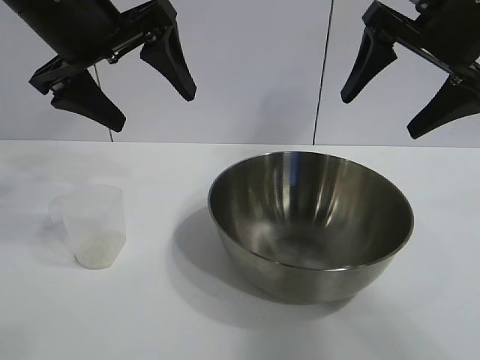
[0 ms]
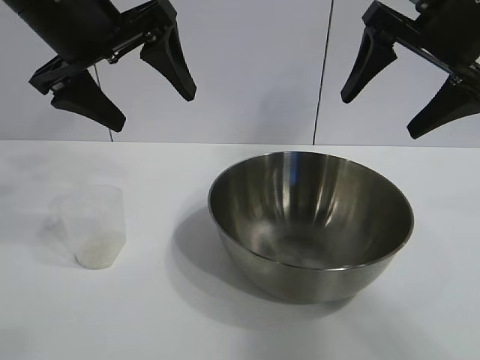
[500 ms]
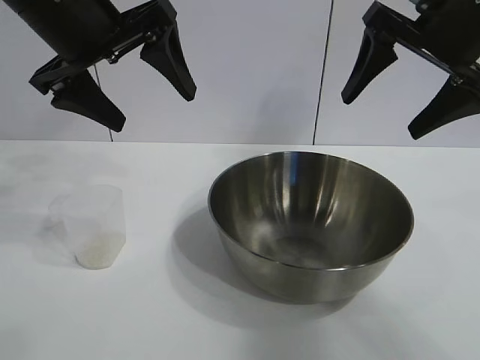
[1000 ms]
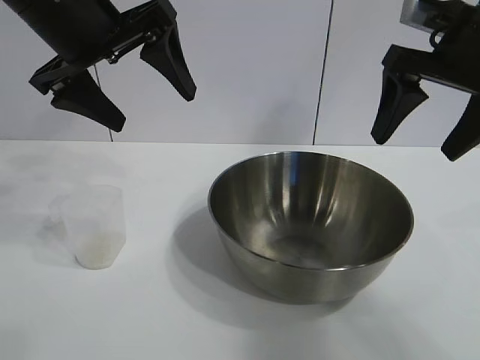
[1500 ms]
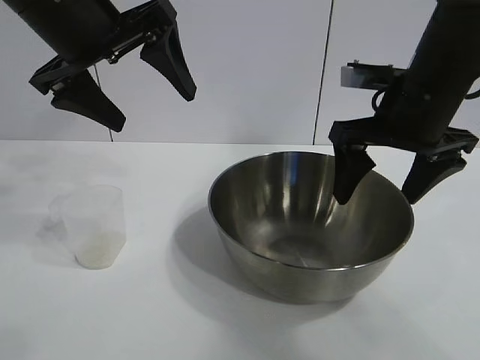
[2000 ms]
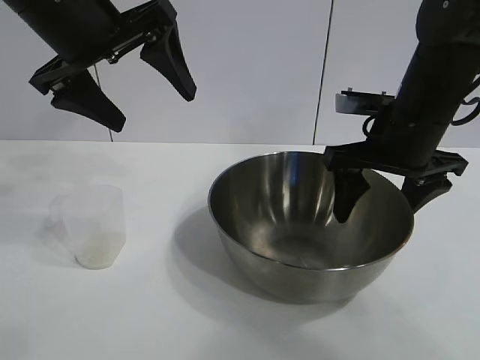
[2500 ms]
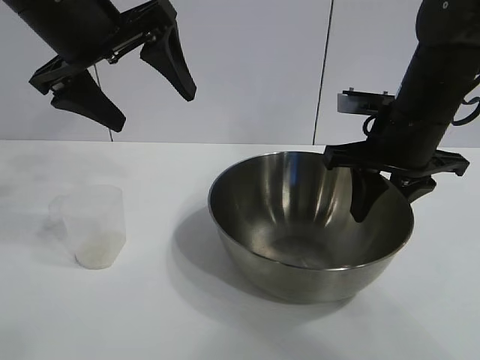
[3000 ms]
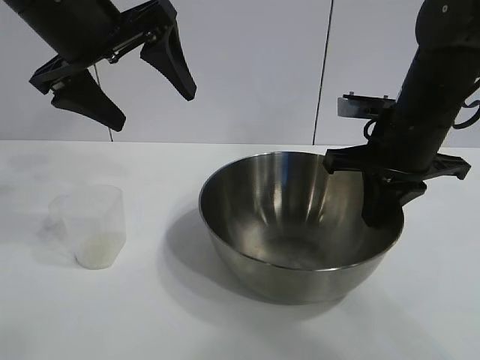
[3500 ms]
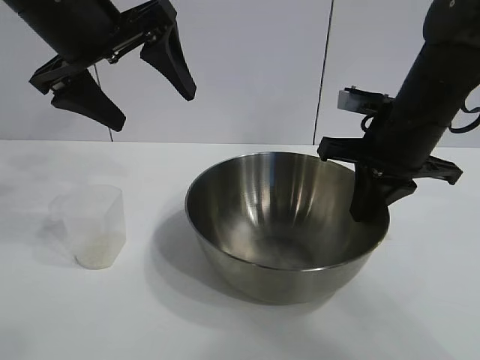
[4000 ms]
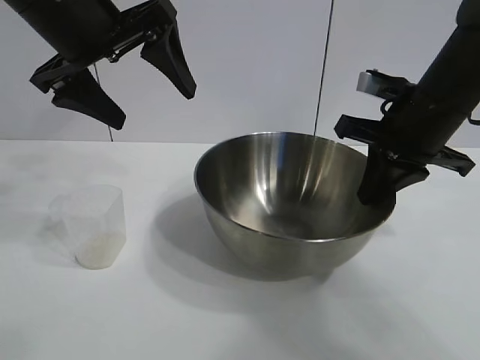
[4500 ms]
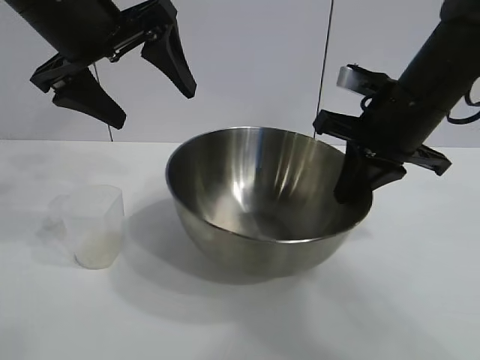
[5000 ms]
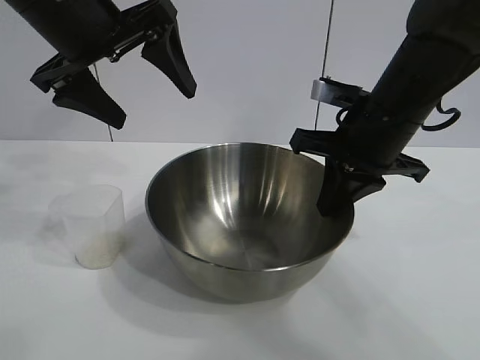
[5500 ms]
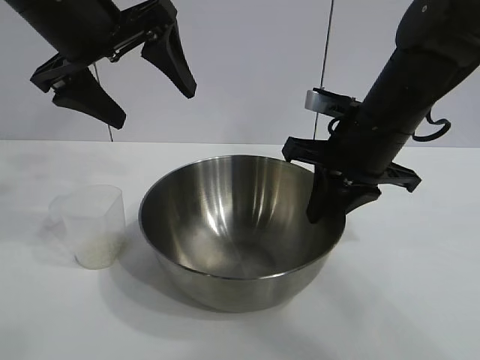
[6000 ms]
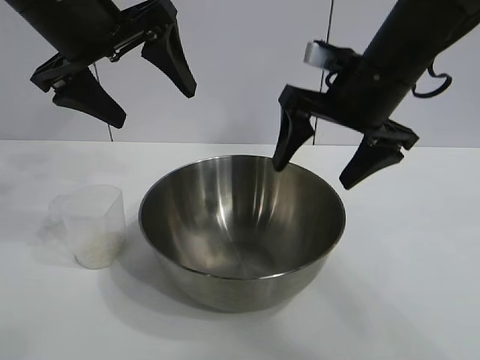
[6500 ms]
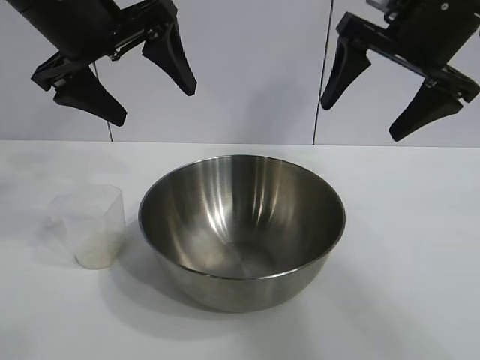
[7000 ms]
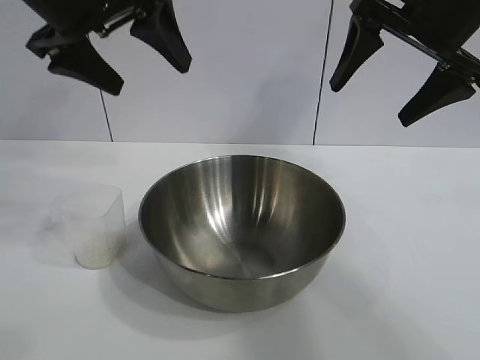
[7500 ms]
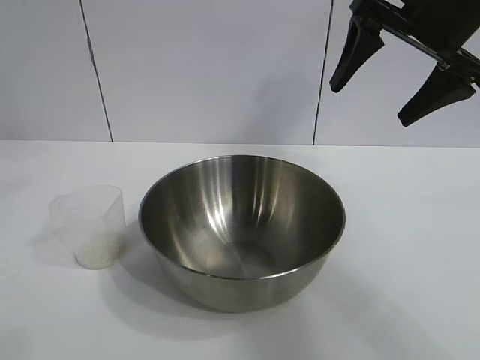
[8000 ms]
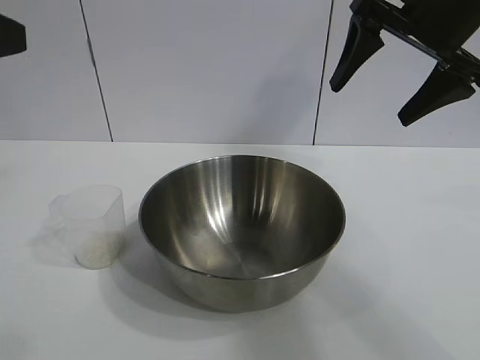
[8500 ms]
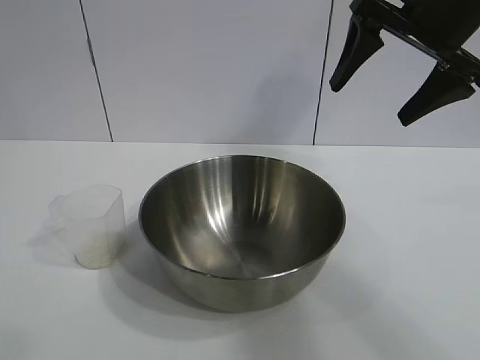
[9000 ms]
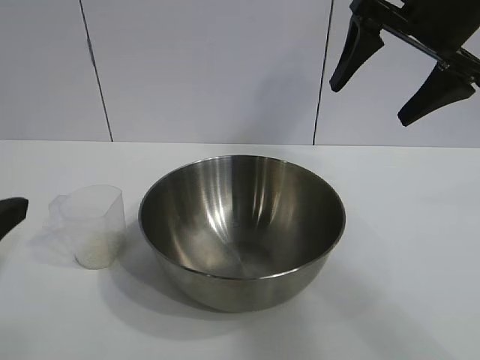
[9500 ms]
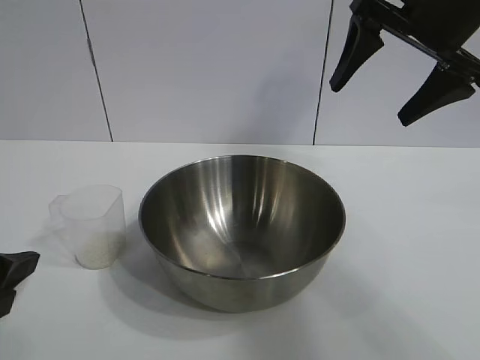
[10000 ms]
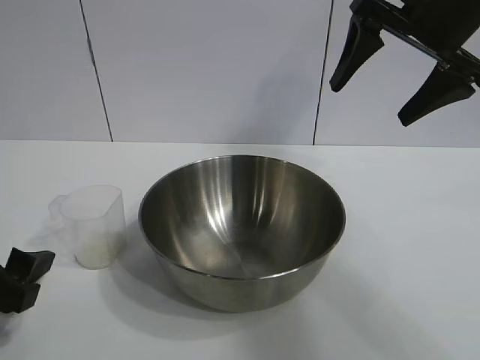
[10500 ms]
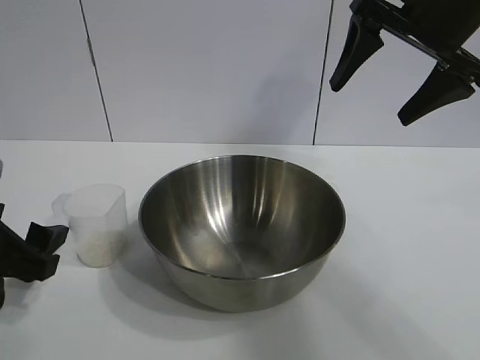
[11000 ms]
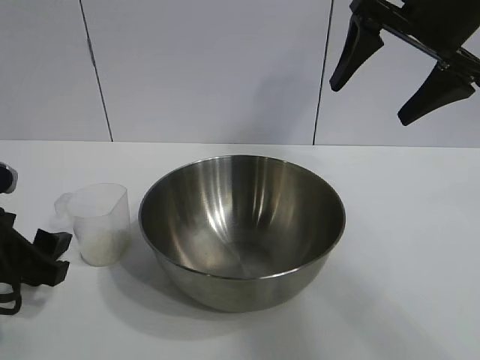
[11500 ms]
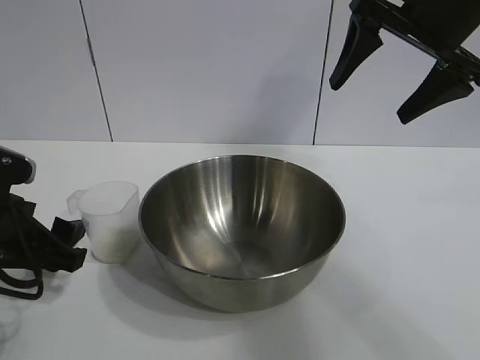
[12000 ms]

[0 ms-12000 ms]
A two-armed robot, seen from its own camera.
Task of the whole recording: the right gripper grasp the rice container and place it in the center of the table, the left gripper grasp the rice scoop and pour the rice into the rice container.
Step, 1000 ms to 6000 ms: Move the bowl in the center of view with right gripper.

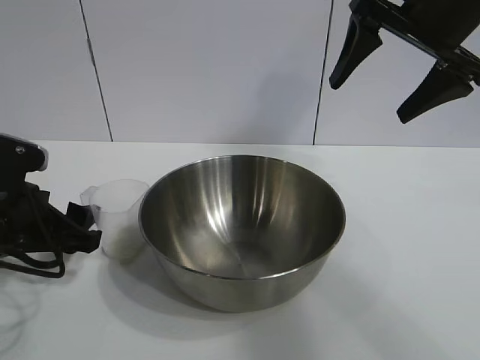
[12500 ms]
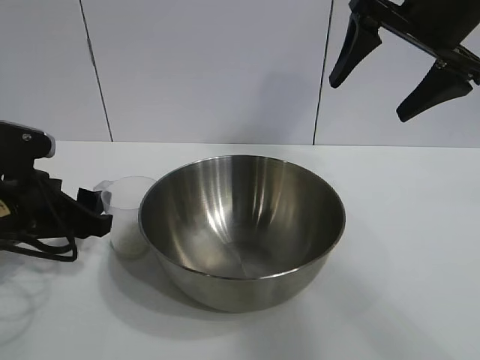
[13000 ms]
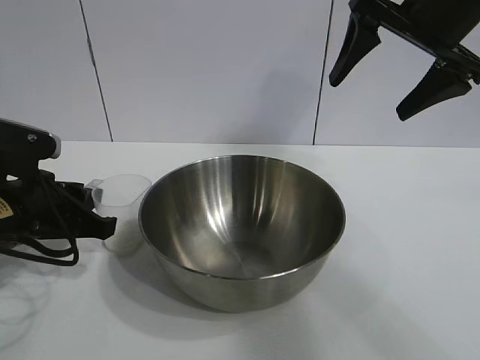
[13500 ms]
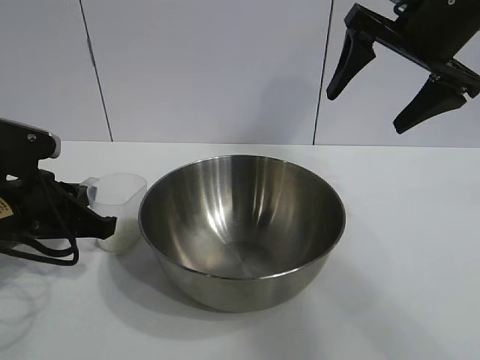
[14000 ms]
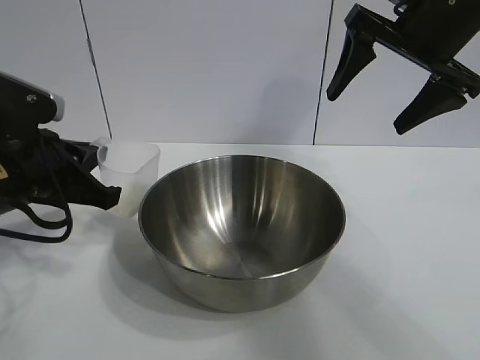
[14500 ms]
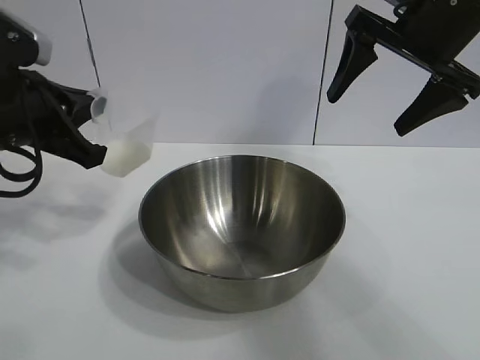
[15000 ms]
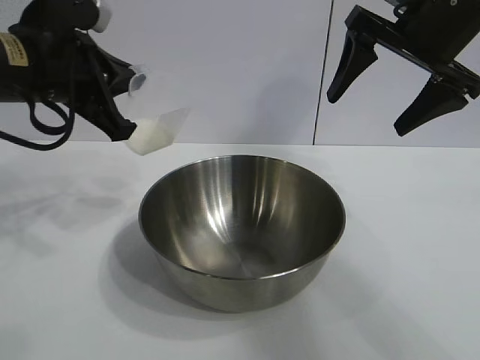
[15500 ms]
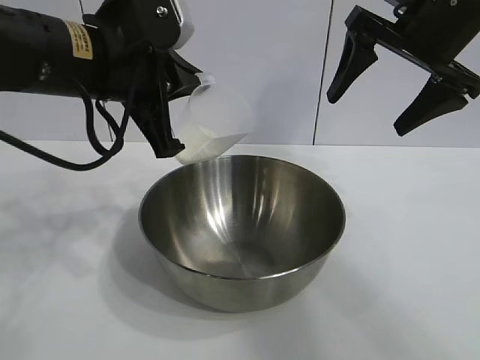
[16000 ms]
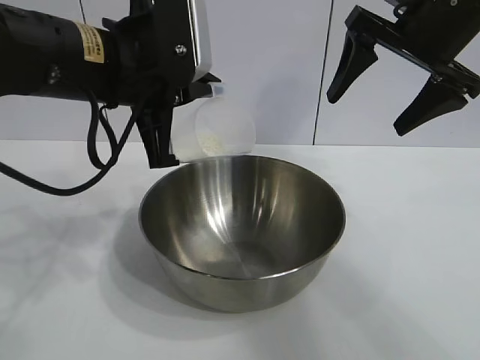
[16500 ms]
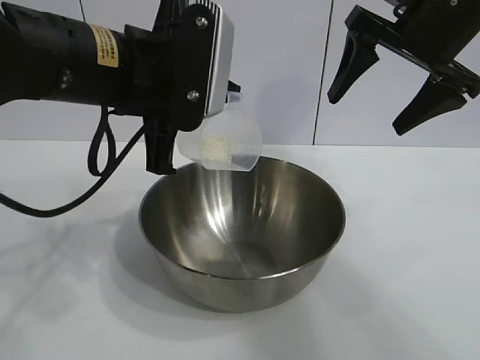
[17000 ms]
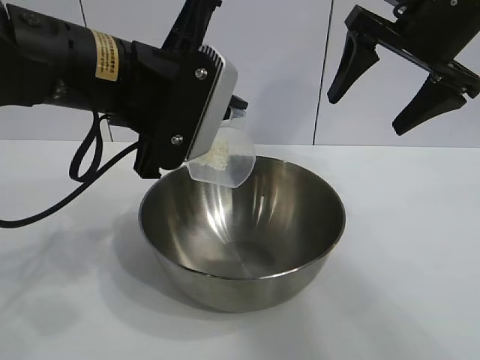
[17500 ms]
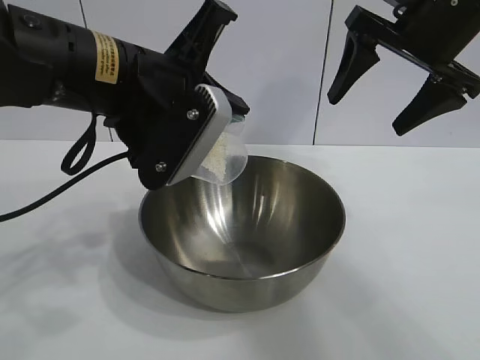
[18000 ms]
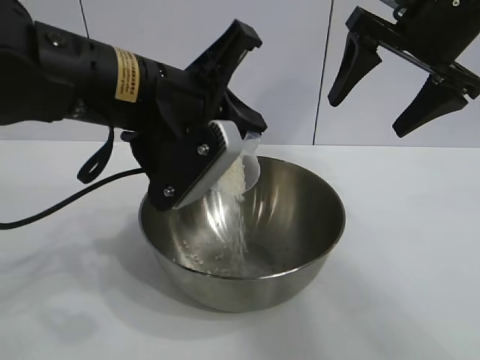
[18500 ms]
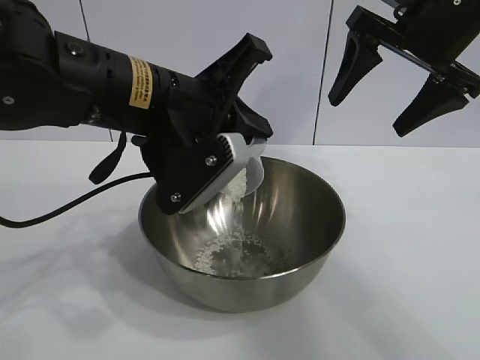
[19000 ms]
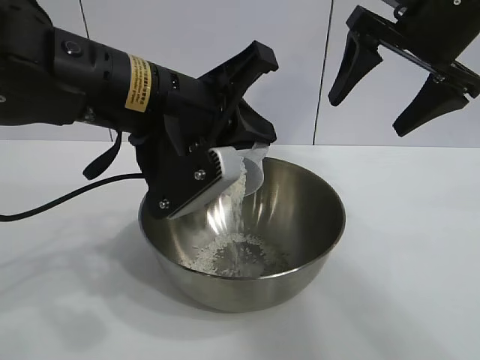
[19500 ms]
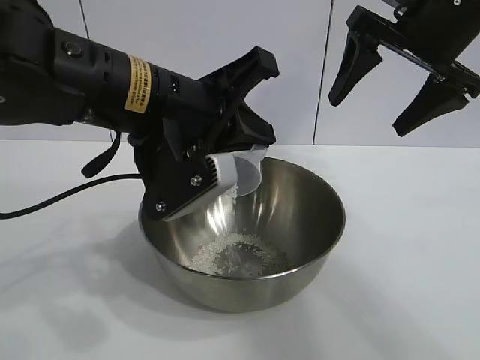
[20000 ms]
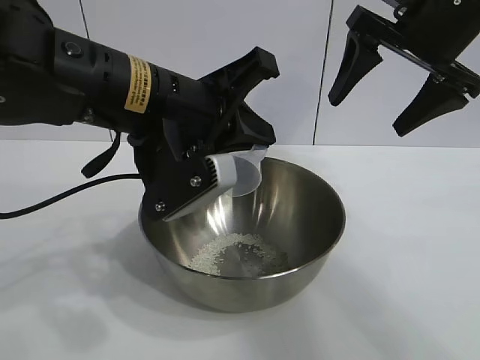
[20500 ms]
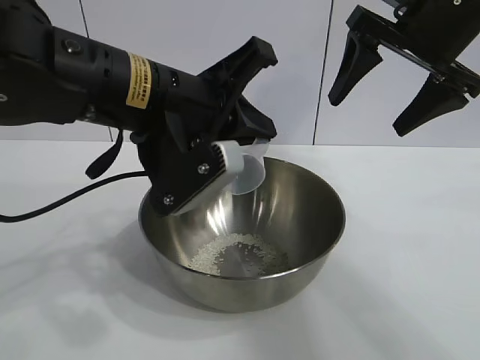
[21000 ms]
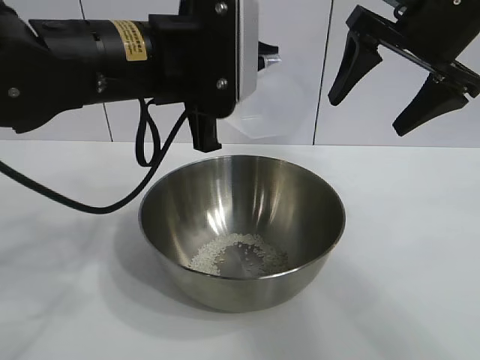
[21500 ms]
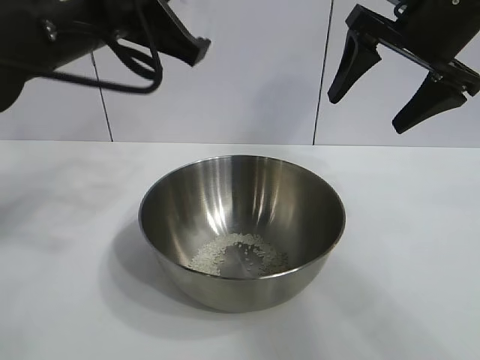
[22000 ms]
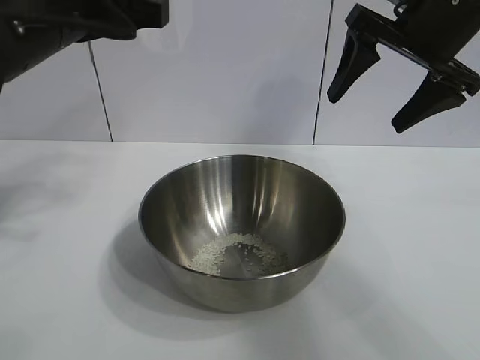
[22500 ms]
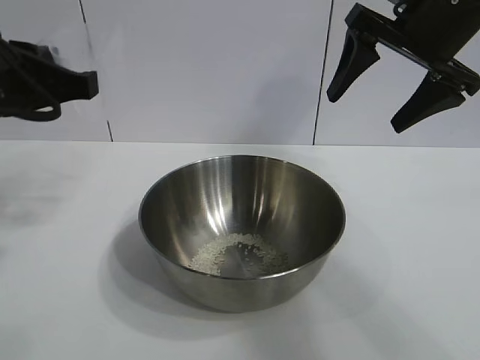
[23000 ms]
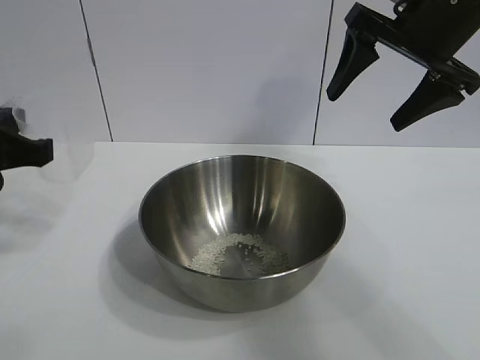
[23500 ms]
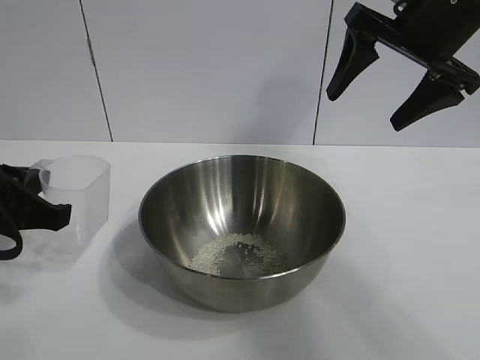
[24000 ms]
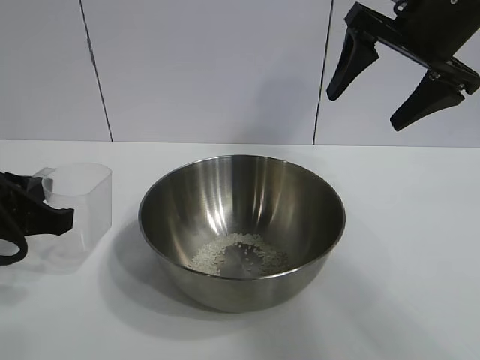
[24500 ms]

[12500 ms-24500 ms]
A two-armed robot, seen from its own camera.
Task of the whole recording: the right gripper grasp the rice container and place it in the center of the table, the left gripper grasp the rice scoop and pour the rice into the rice container.
Step, 14000 ms to 20500 ms: Pour the rice from the cup into the bowl with the left gripper.

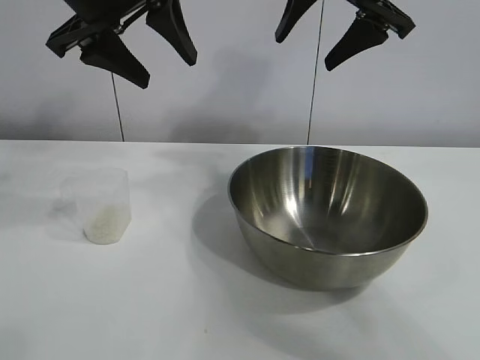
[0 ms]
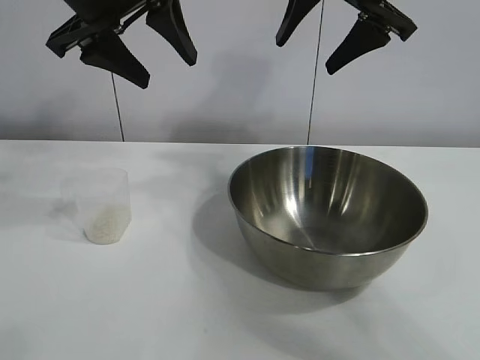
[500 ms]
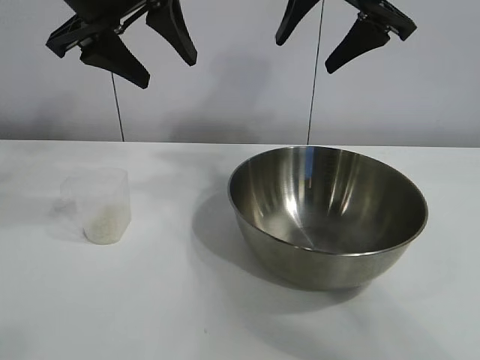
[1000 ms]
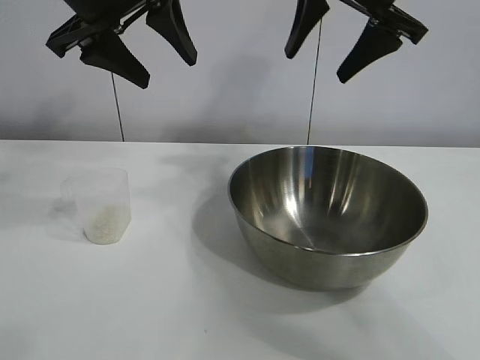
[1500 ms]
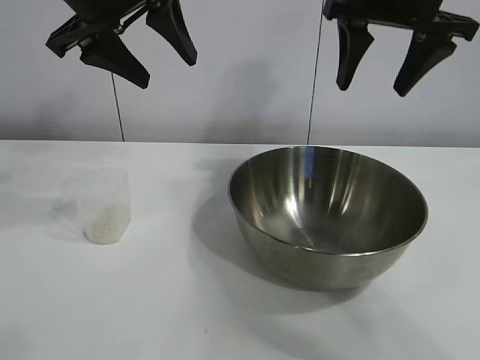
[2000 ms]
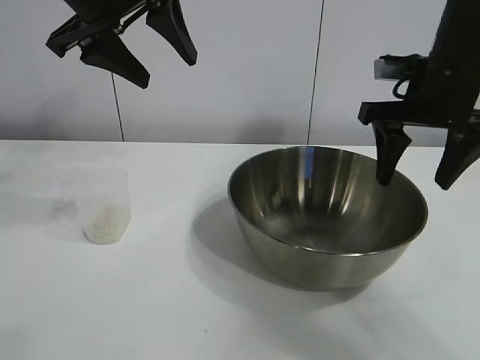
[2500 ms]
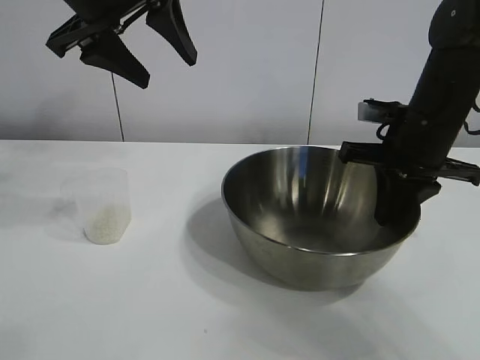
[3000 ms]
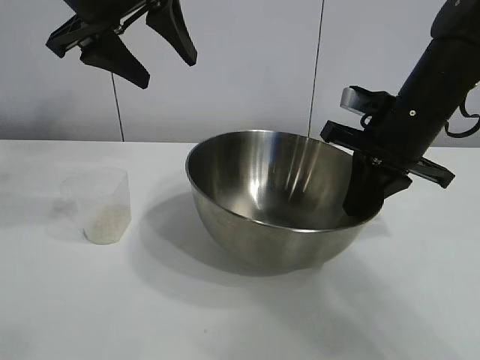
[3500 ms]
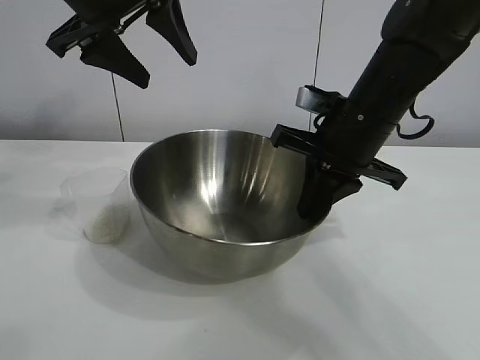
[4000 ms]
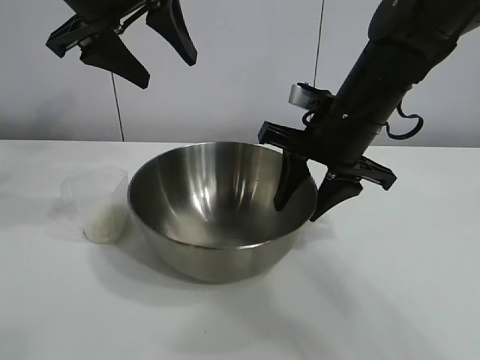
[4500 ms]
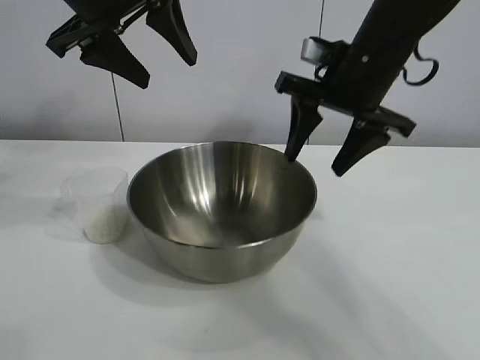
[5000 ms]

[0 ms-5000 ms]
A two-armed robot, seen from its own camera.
Task of the whole recording: the right gripper grasp the rice container and place it in the center of the table, the left gripper grasp the rice scoop and pour the rice into the rice container.
Step, 1500 ms to 4500 ms: Move the bowl in the center of view with right gripper.
